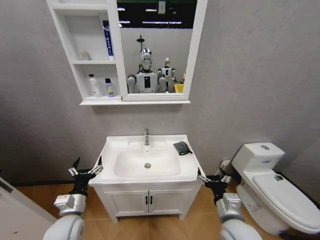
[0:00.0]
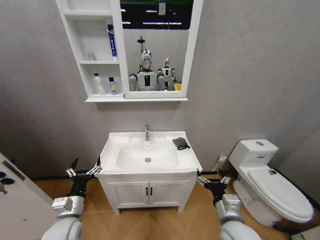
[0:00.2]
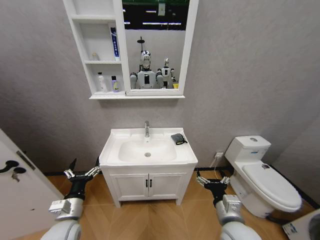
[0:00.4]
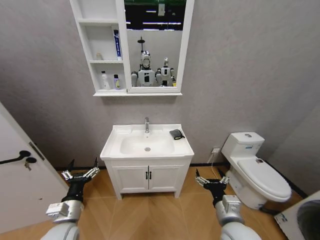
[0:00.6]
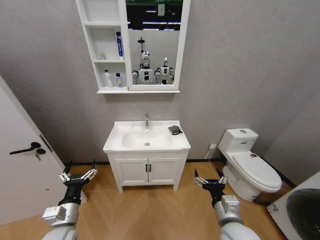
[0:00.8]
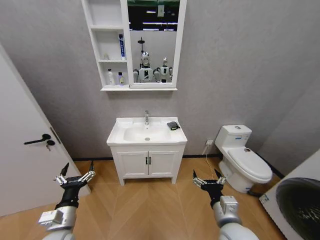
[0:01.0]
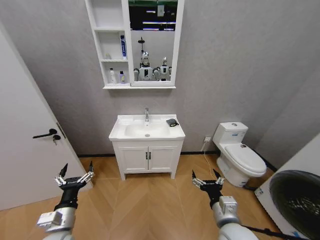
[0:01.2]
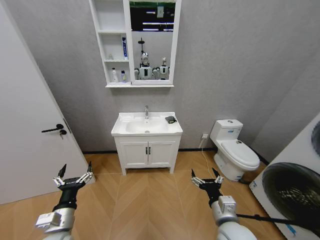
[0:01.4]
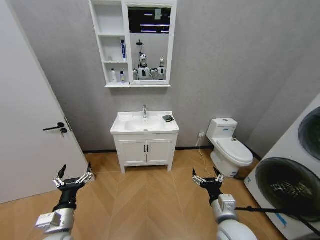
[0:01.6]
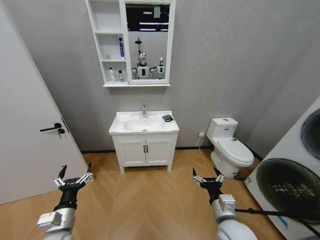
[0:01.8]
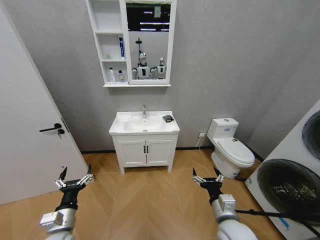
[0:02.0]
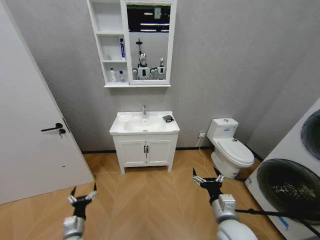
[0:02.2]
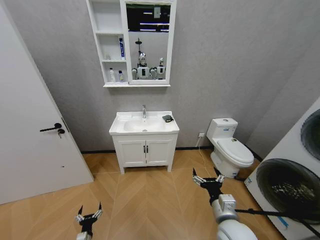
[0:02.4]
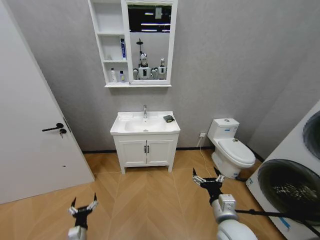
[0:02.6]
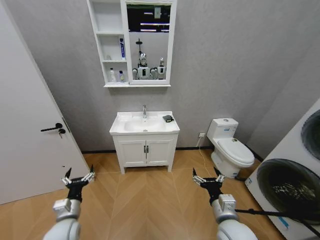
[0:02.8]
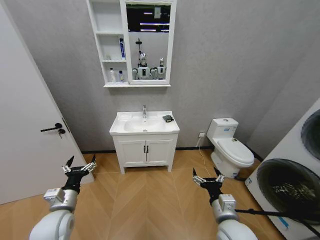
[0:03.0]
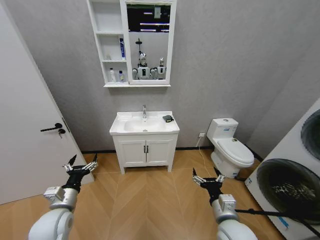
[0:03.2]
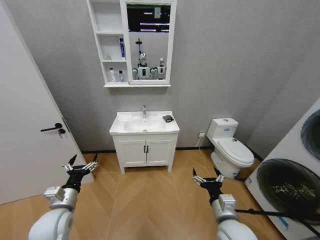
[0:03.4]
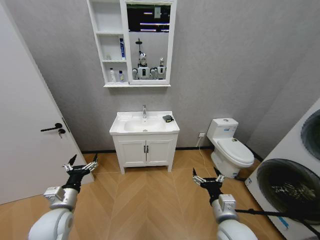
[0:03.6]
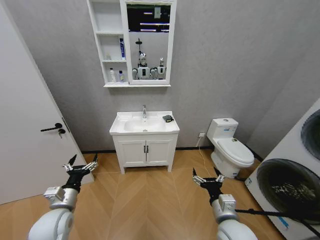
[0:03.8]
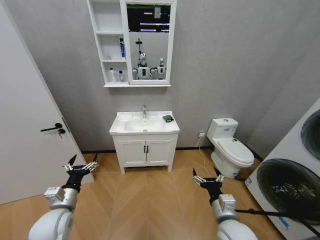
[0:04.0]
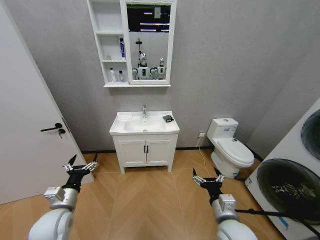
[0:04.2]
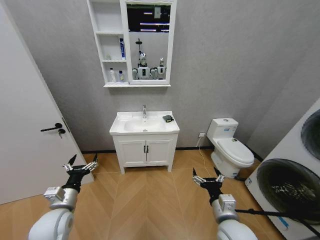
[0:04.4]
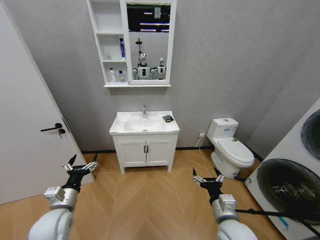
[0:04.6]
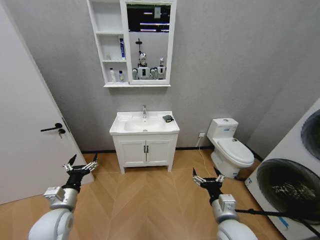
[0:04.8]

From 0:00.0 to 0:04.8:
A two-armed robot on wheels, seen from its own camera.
Task of the whole recording: Move facial cleanser and shampoo from washbasin to cabinet, then wipe washbasin with towel.
From 0:01.6 to 0:03.2: The left gripper moves forward, approximately 5 cm, and travels downward and back again, about 30 cm each way.
From 0:03.2 to 0:04.8: Both grippers stay put.
